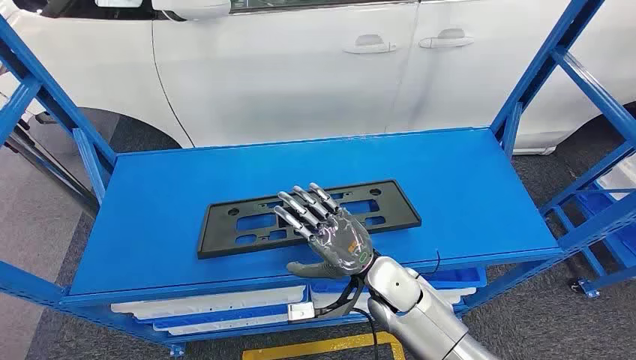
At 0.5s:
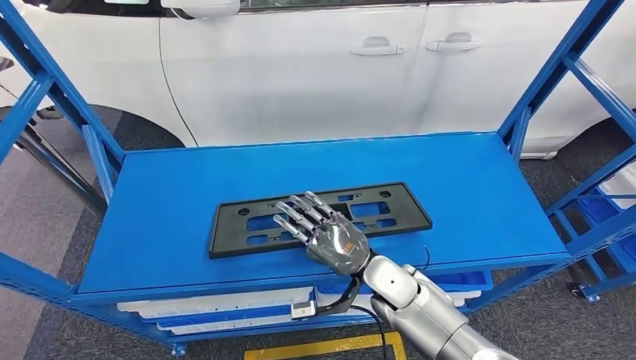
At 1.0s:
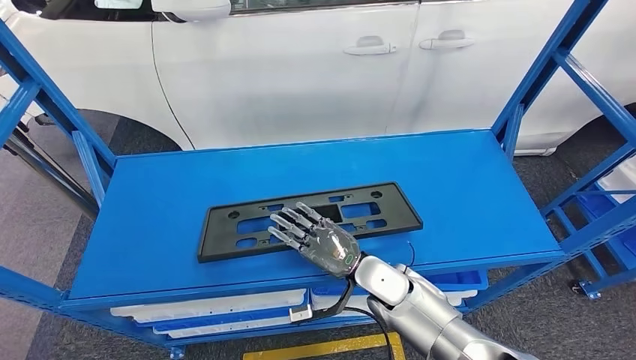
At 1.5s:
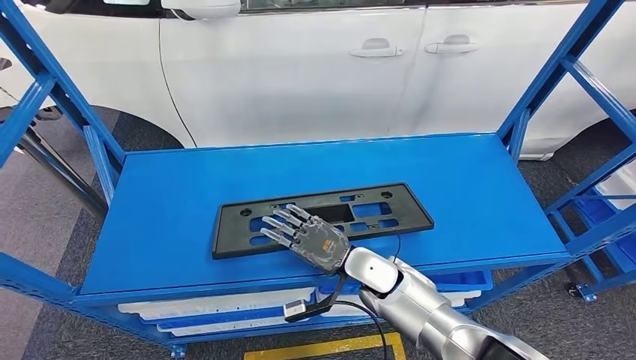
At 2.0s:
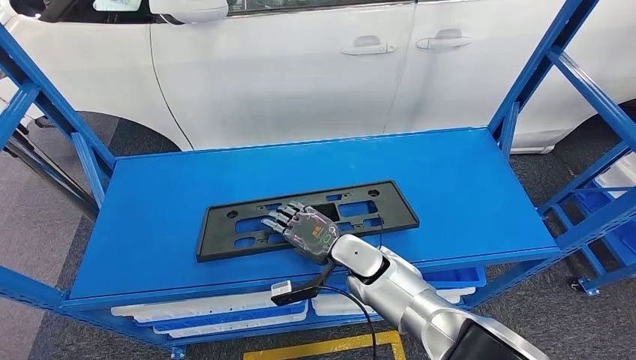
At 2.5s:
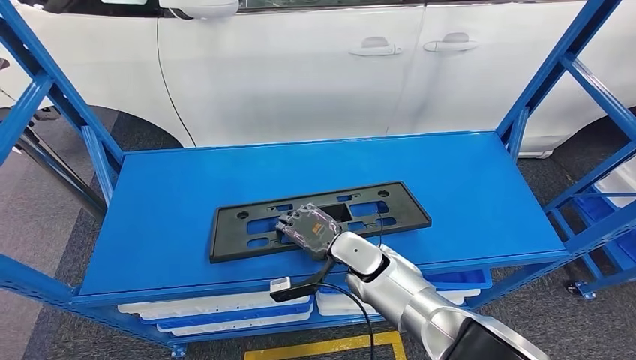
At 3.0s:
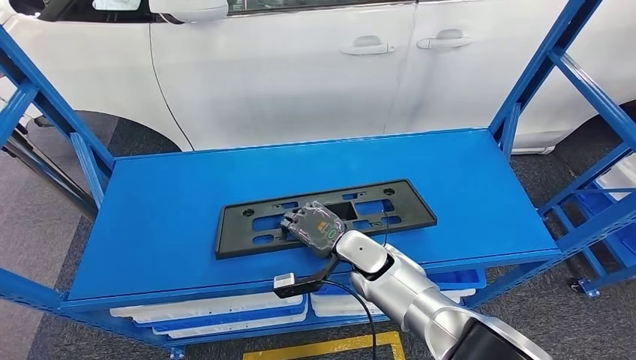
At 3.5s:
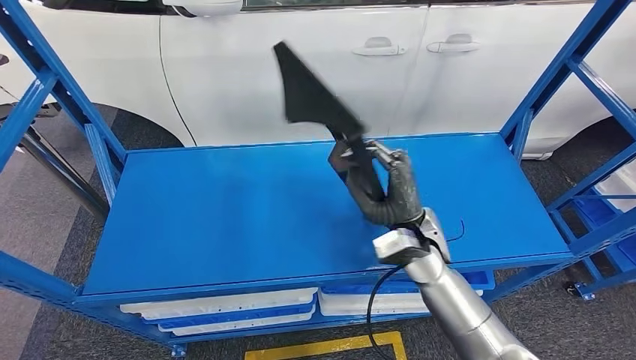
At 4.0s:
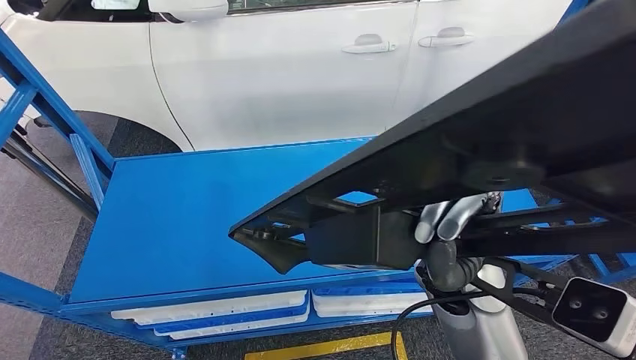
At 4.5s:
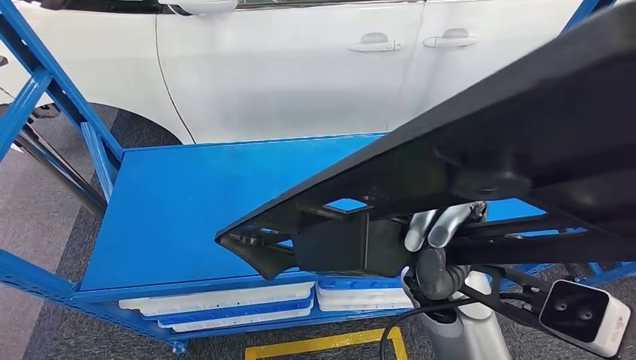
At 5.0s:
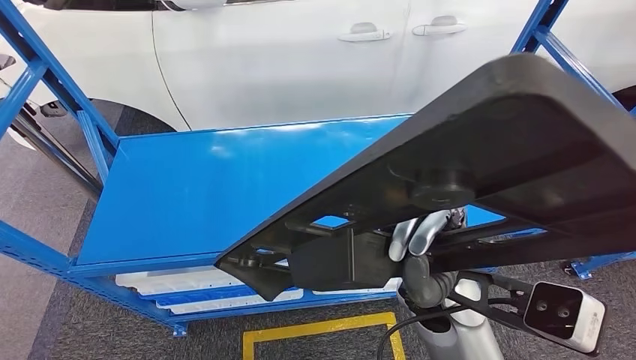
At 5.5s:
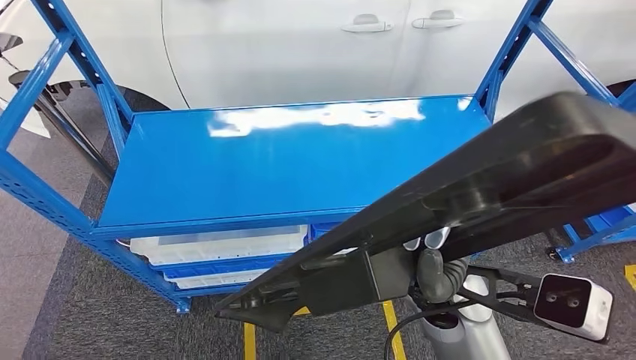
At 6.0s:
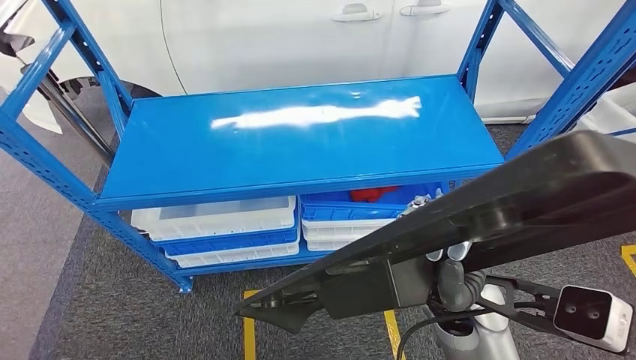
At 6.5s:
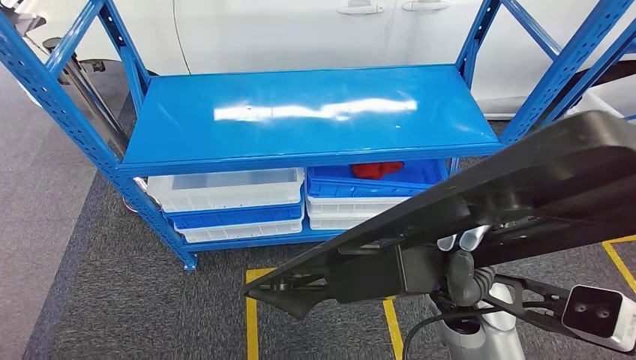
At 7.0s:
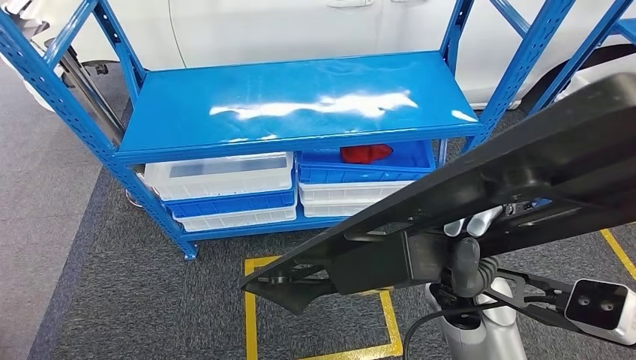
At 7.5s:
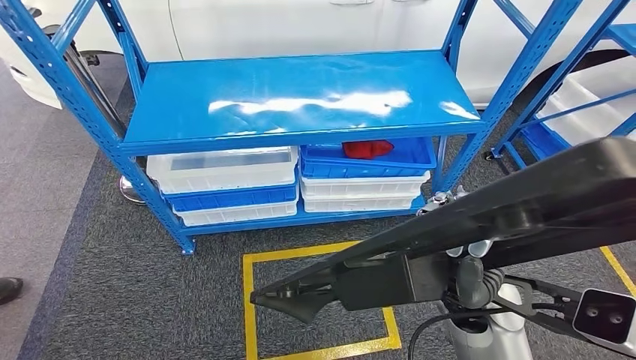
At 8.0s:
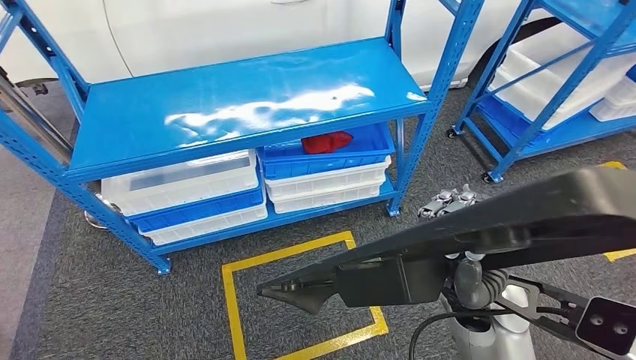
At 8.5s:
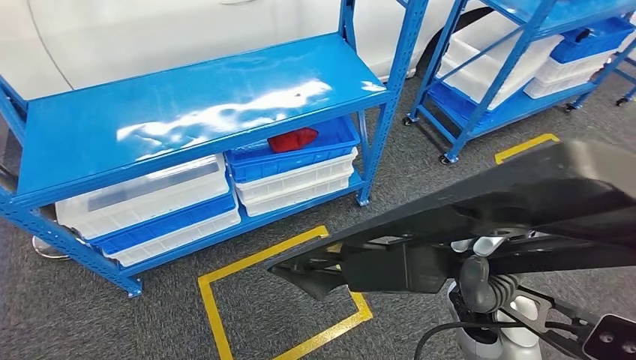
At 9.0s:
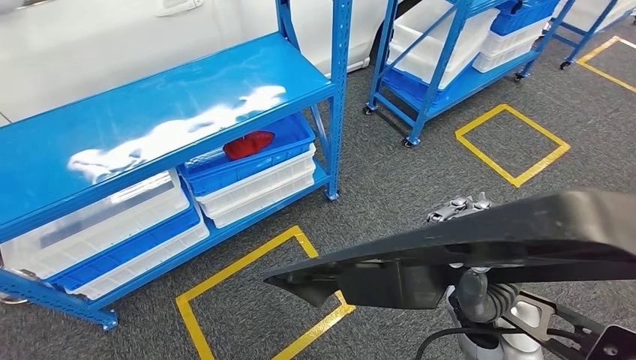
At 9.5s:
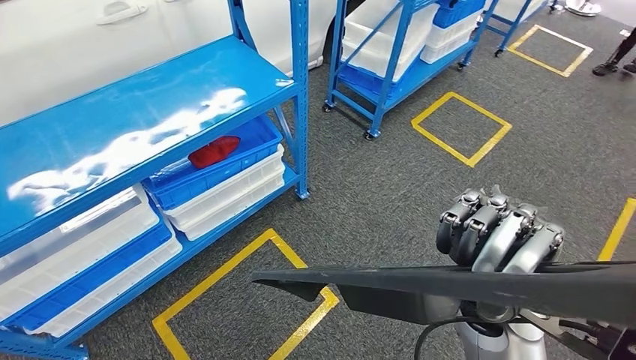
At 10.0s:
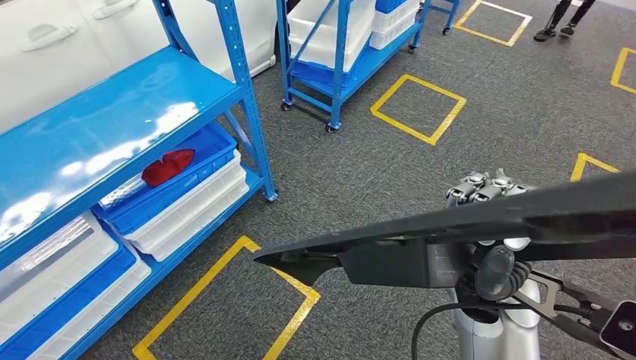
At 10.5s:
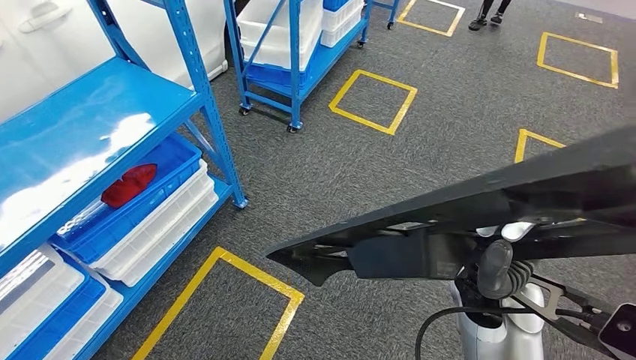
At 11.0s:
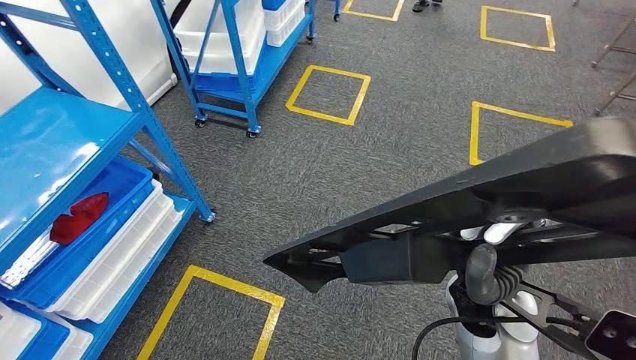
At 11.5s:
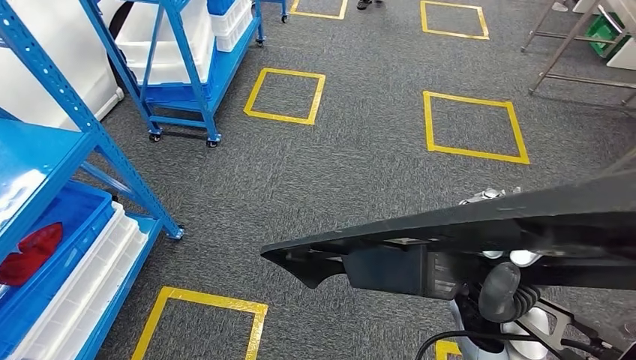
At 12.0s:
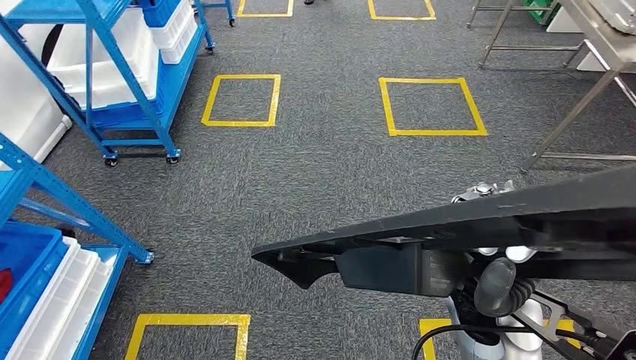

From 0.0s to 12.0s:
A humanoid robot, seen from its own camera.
Step, from 0.0s to 4.0s: Pick up the large material from the shelf.

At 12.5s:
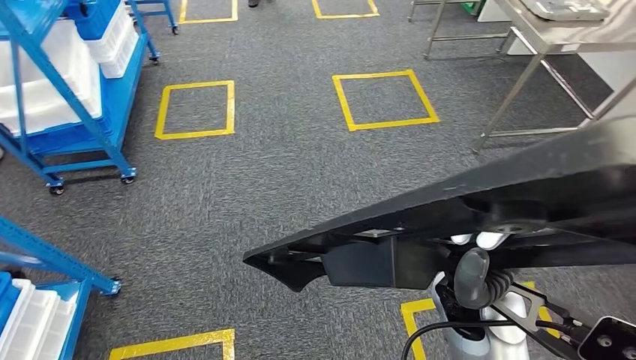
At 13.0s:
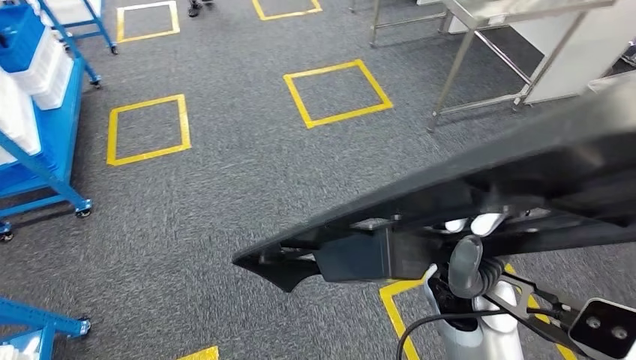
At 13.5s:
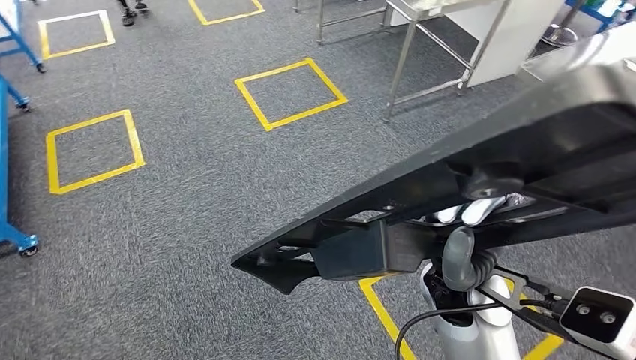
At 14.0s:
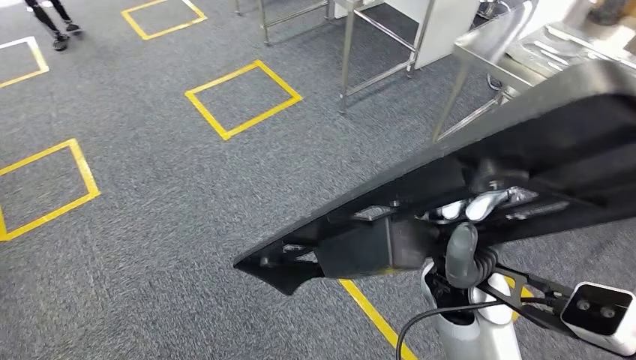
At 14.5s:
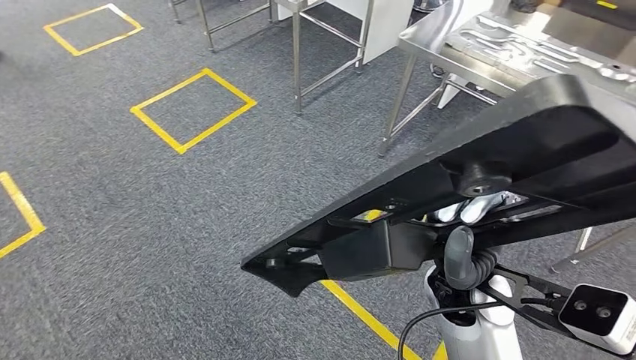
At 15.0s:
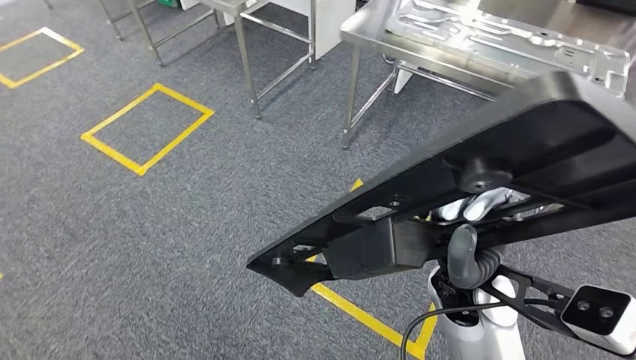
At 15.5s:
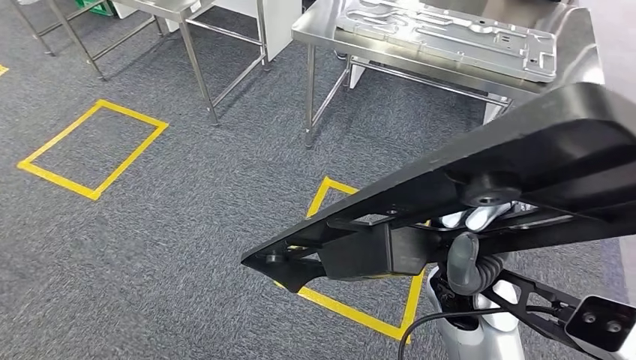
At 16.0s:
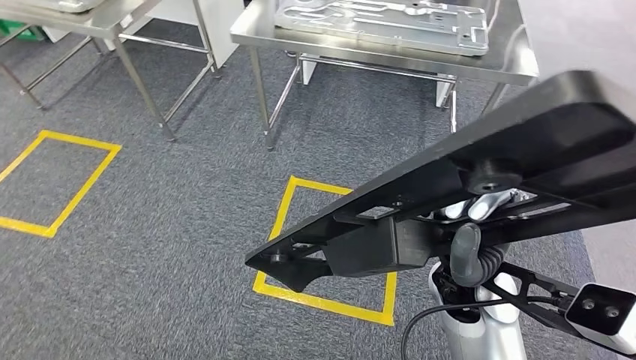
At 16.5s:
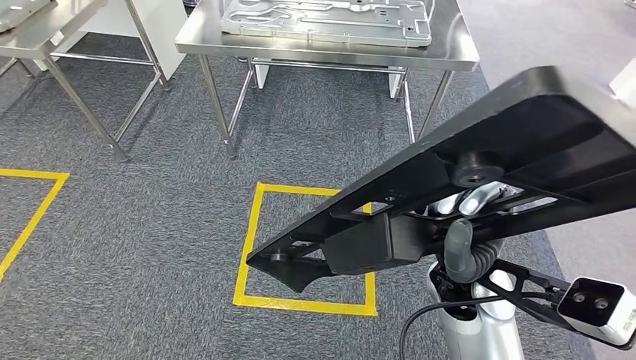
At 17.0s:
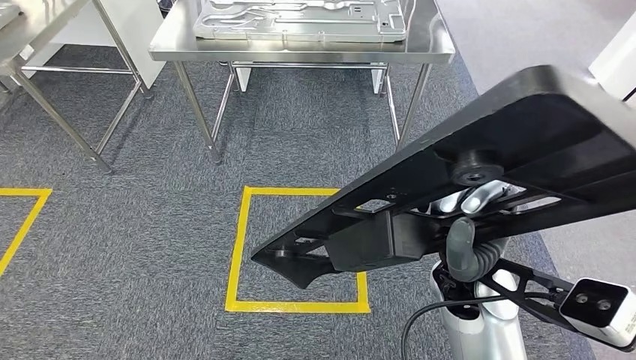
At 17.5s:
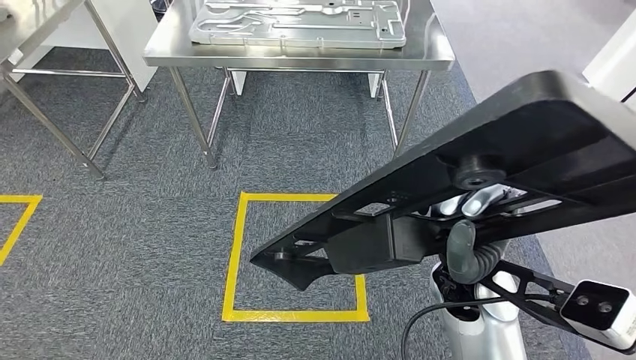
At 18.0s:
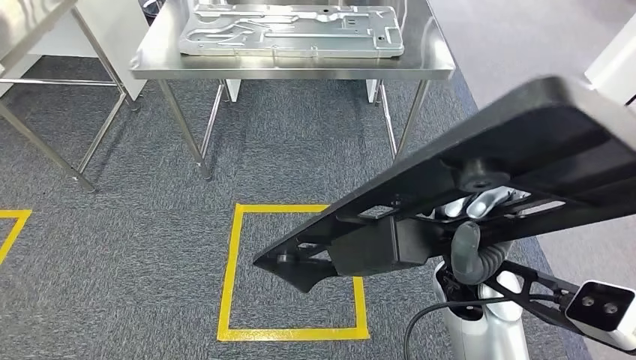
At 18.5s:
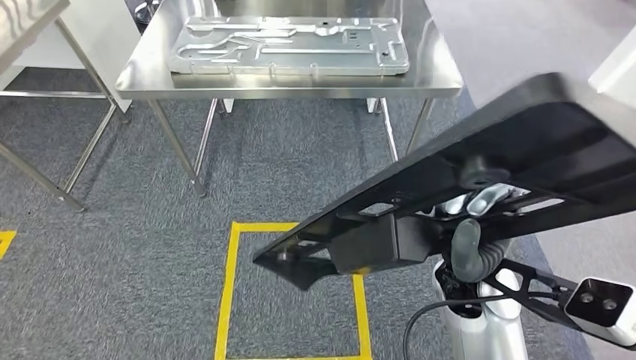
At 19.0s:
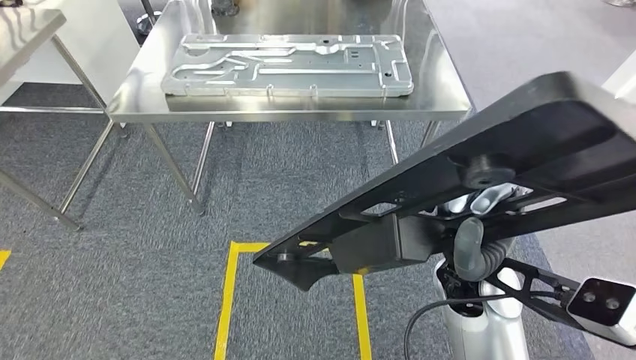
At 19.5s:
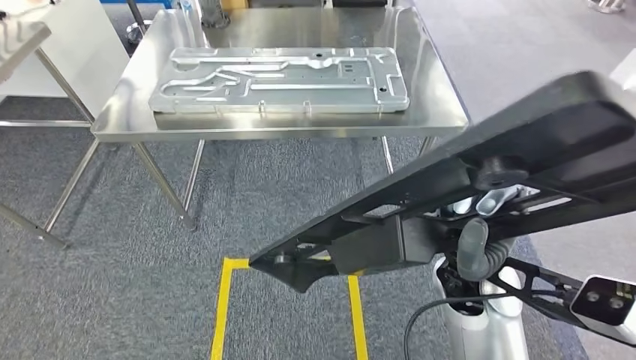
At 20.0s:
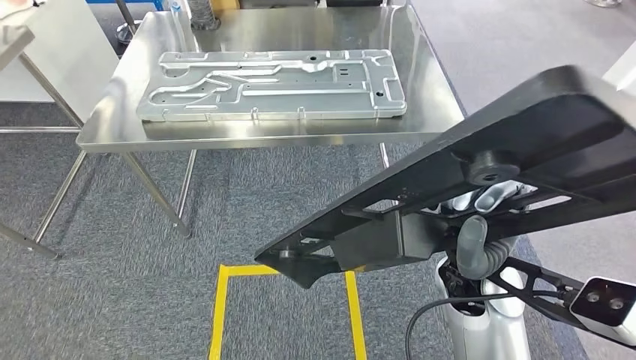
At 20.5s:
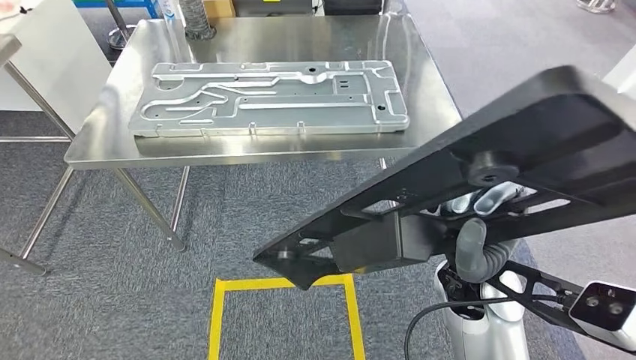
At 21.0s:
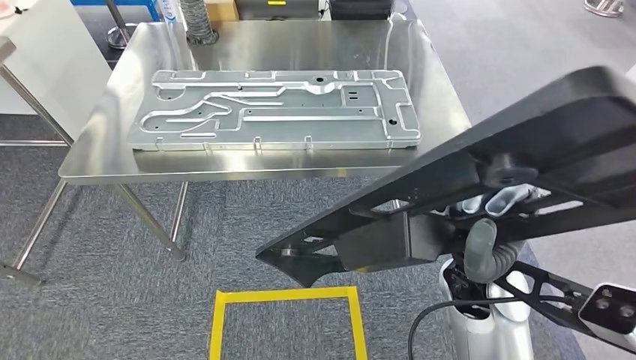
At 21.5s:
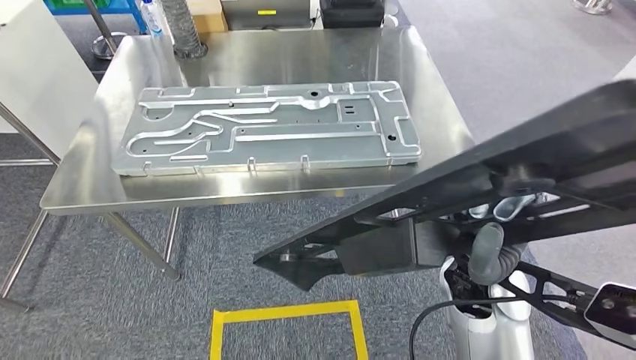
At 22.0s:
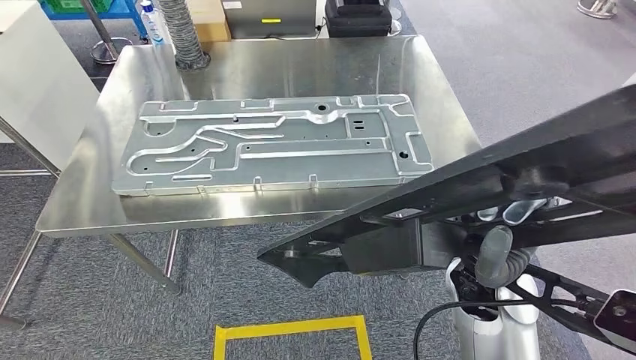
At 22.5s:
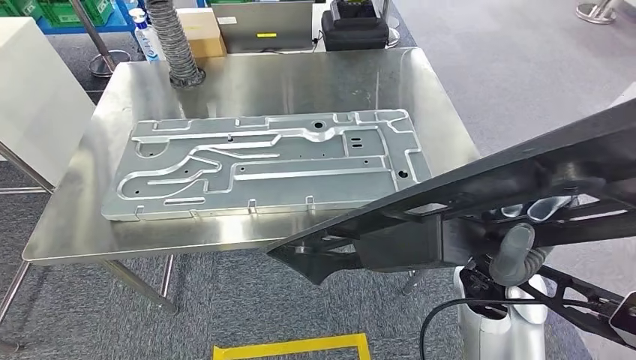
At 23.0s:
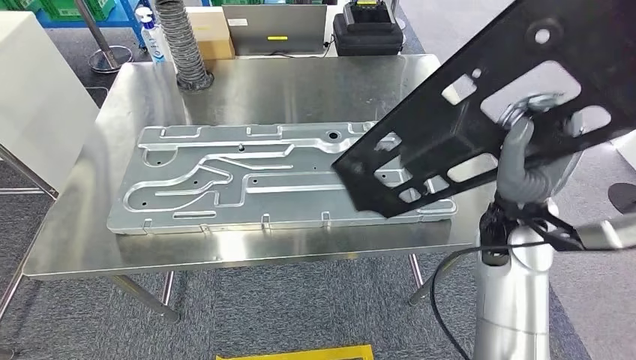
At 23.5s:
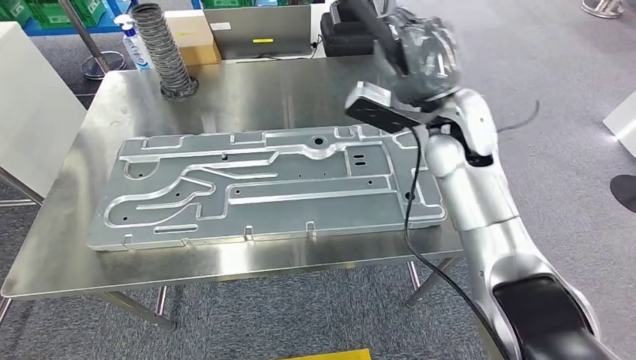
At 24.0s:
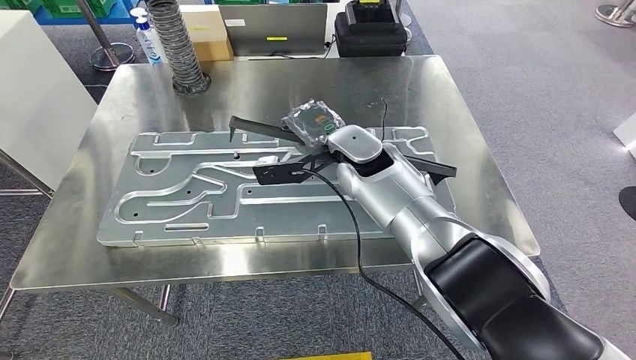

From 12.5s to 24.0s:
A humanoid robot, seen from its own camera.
Step, from 12.5s to 22.5s: Move the large material to the workbench.
